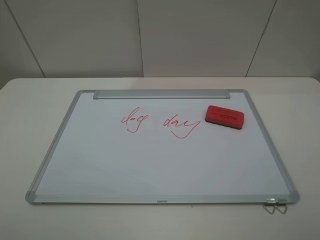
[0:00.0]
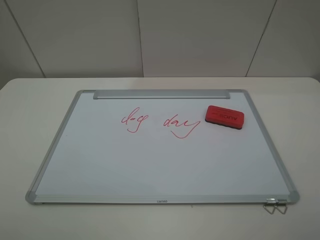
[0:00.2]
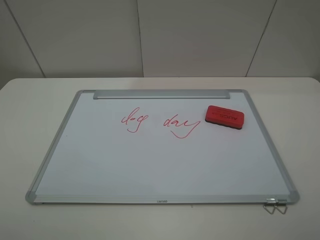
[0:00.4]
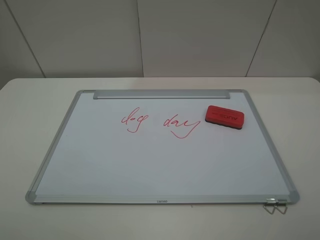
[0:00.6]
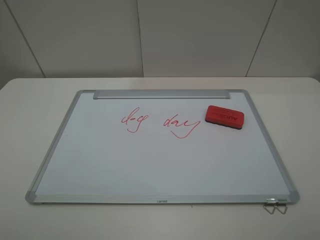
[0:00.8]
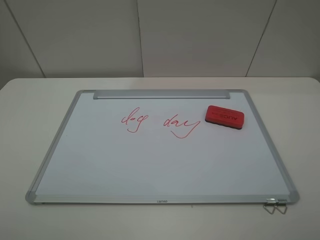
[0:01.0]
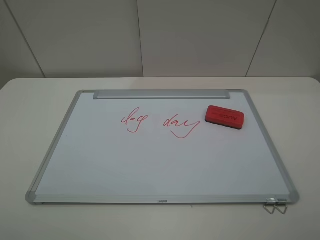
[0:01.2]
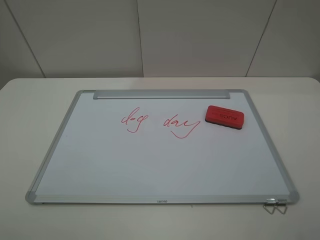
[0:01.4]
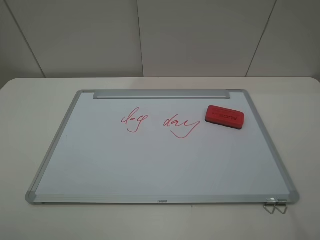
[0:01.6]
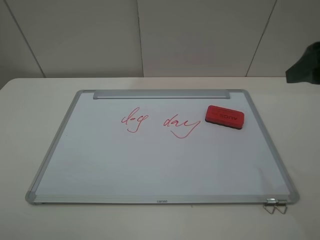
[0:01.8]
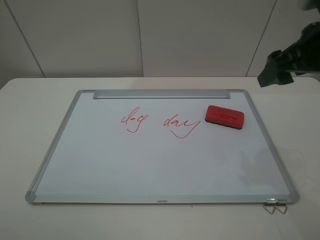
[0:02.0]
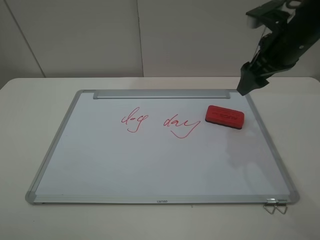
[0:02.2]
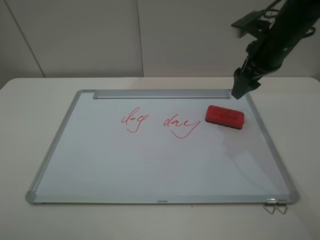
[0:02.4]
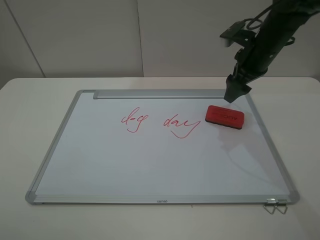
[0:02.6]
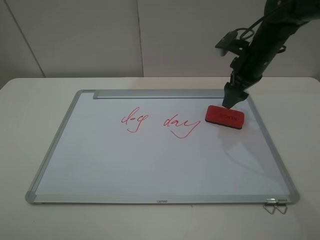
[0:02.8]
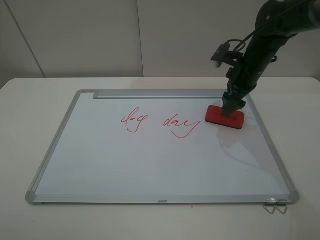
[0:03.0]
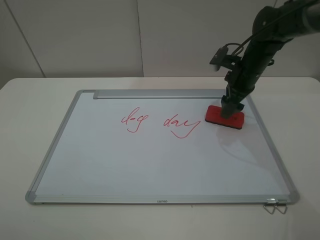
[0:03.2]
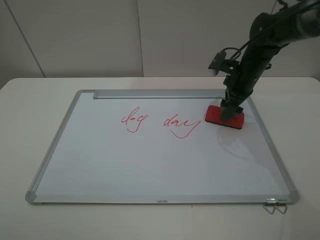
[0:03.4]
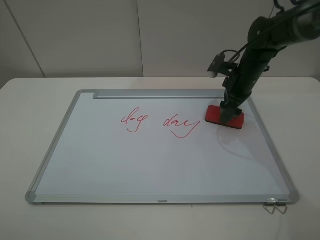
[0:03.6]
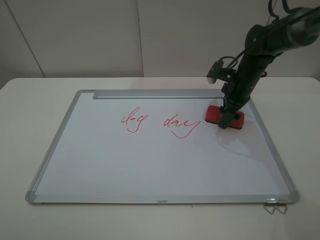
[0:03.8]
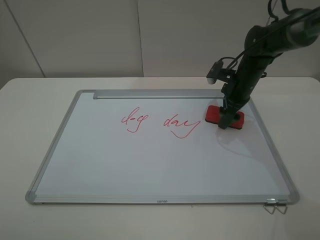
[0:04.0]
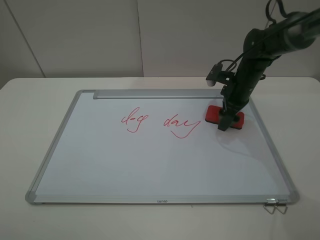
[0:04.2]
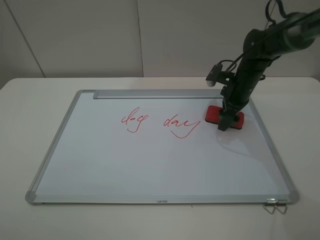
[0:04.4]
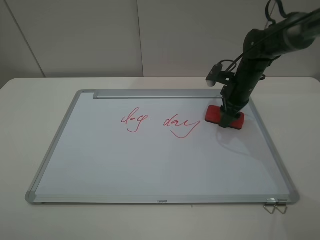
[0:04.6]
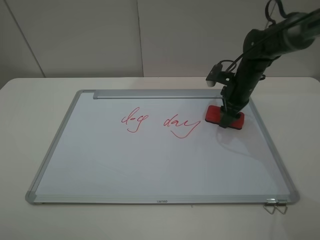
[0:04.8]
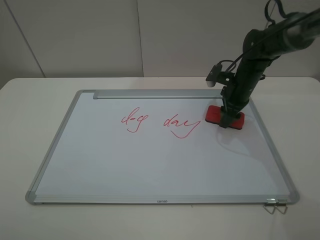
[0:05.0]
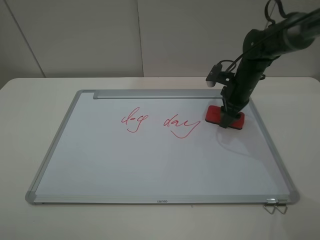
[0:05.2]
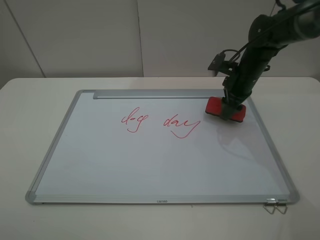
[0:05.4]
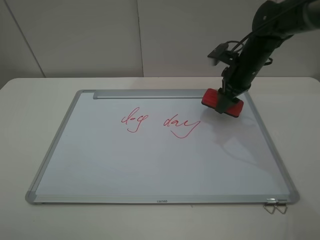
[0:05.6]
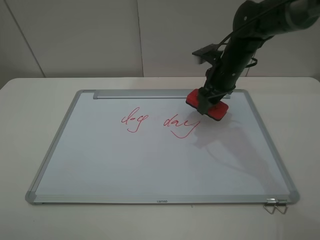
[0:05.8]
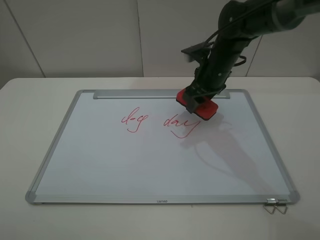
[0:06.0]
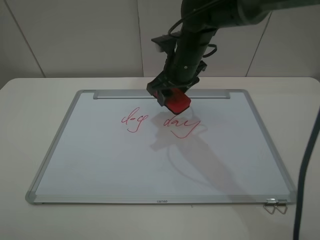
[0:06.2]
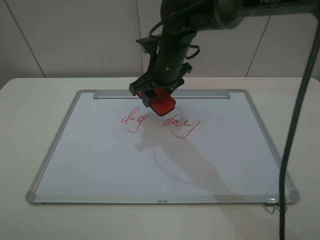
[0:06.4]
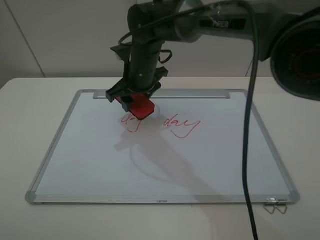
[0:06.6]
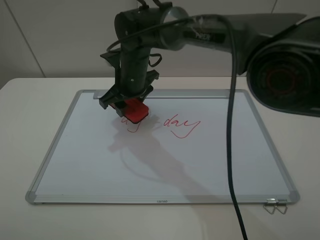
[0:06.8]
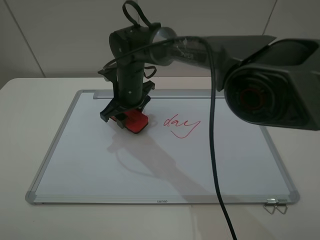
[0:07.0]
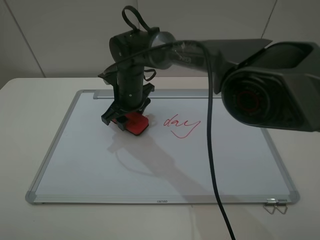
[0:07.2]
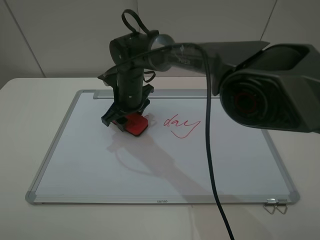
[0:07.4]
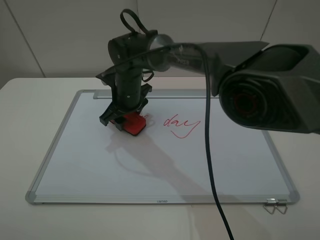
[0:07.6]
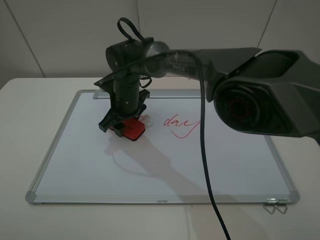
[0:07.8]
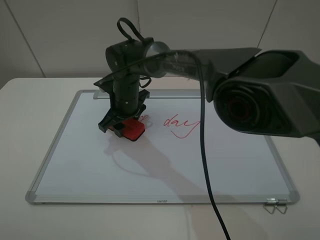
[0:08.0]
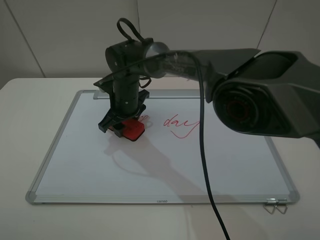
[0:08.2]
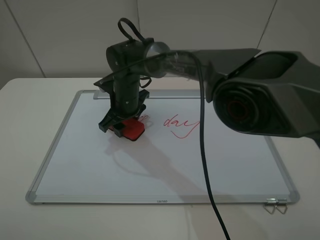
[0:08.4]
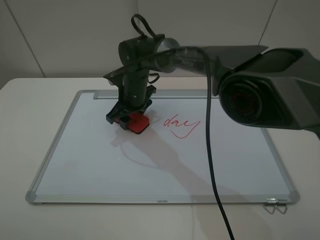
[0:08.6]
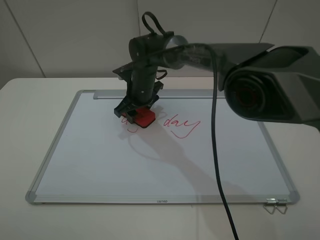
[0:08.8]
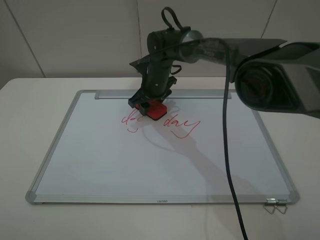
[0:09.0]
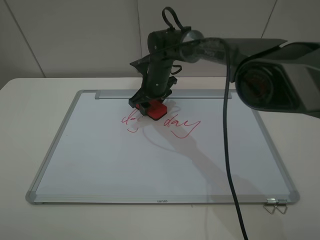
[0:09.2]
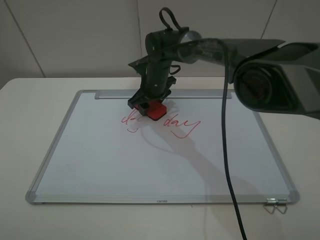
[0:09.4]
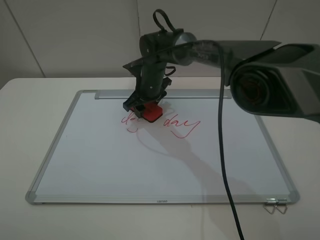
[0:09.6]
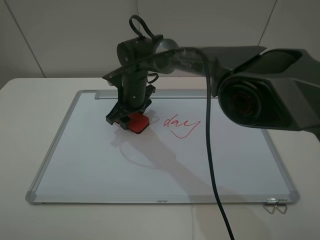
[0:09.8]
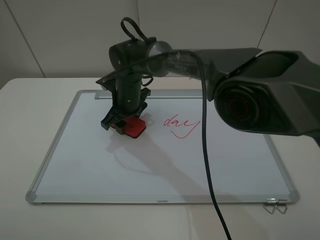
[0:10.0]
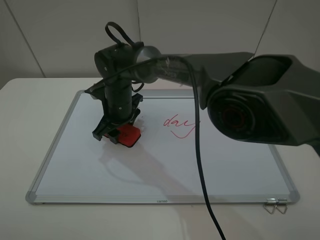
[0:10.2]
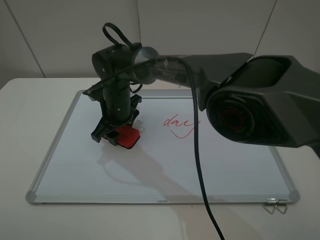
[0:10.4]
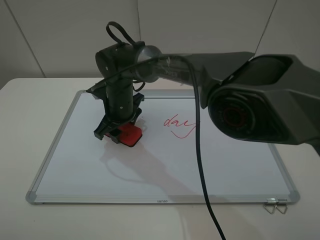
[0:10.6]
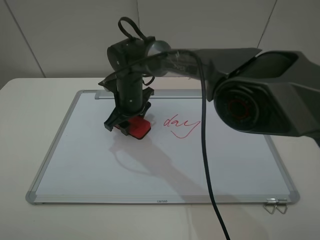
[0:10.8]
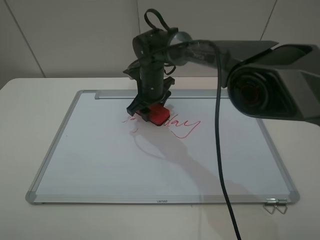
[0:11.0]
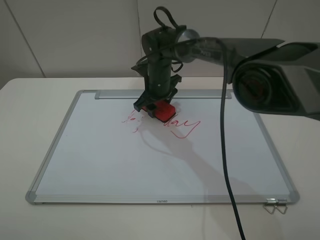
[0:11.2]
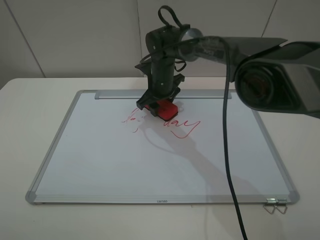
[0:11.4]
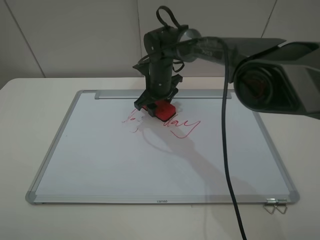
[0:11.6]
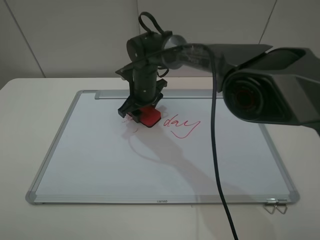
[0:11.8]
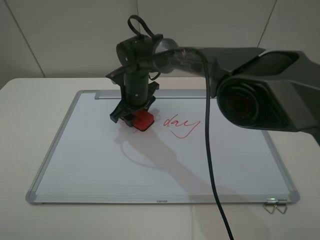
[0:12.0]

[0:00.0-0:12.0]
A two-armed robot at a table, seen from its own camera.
Step, 0:00.0 to 0:04.4: Grasp the eraser with the right gripper.
0:01.6 to 0:03.0: The right gripper goes about 35 cm forward and downward.
0:03.0 to 0:04.4: The right gripper moves downward, about 5 cm.
0:04.4 to 0:06.0: The right gripper is displaced to the left and upward by about 10 cm, and closes.
0:06.0 to 0:07.6: The right gripper moves to the left, some 20 cm.
0:07.6 to 0:09.0: The right gripper is displaced to the right and forward by roughly 10 cm.
0:09.0 to 0:10.4: The right gripper goes approximately 15 cm to the left and backward.
0:10.4 to 0:12.0: The right gripper moves roughly 10 cm to the right and comes back.

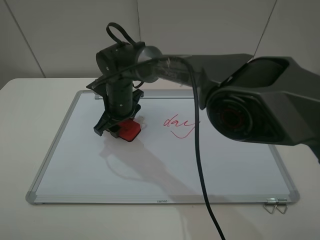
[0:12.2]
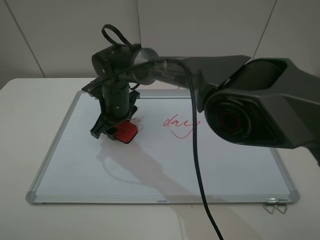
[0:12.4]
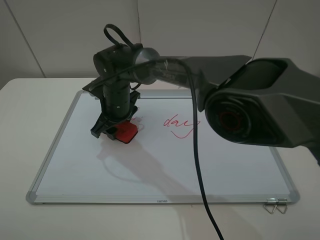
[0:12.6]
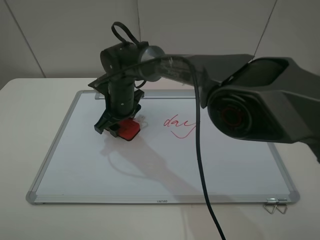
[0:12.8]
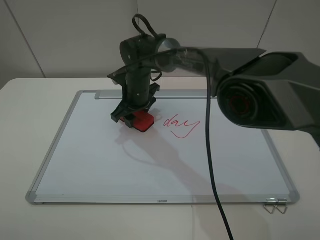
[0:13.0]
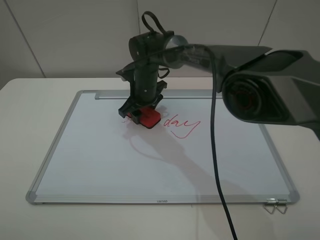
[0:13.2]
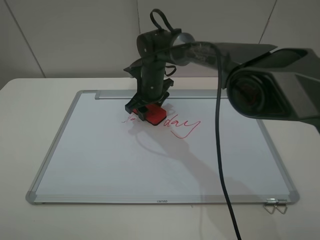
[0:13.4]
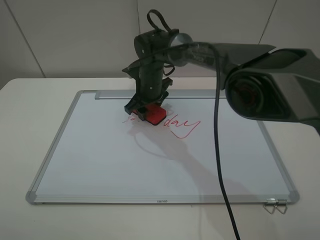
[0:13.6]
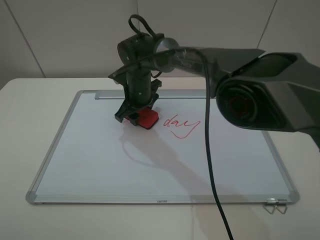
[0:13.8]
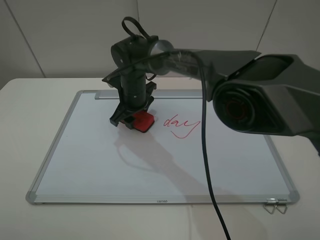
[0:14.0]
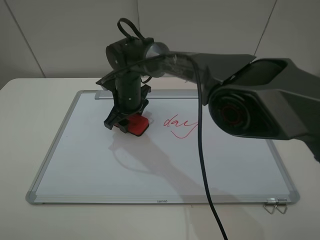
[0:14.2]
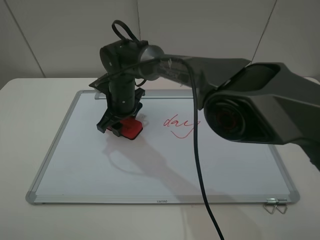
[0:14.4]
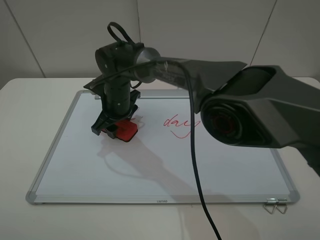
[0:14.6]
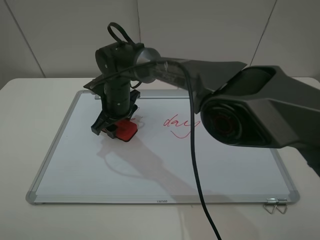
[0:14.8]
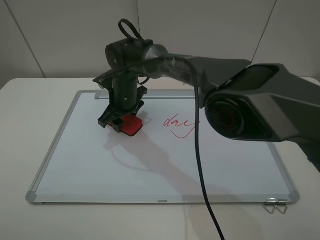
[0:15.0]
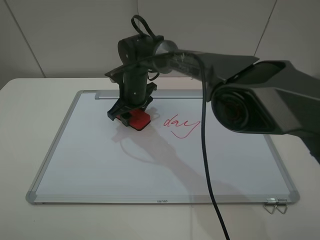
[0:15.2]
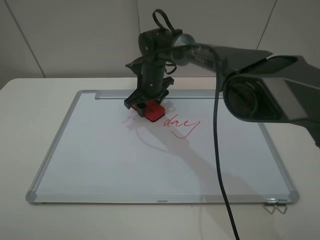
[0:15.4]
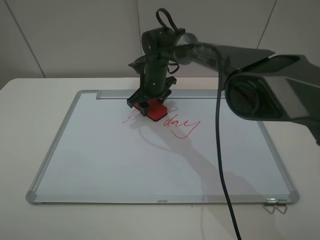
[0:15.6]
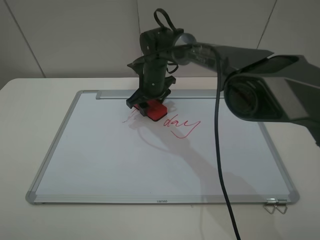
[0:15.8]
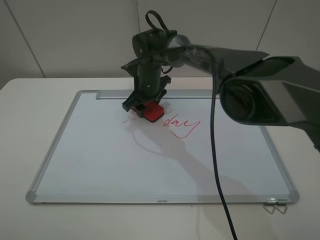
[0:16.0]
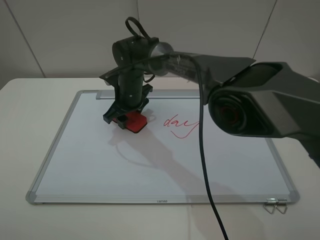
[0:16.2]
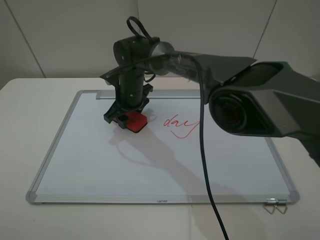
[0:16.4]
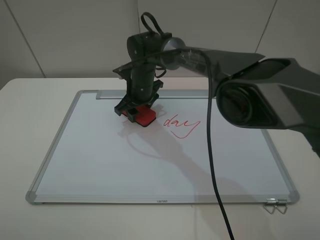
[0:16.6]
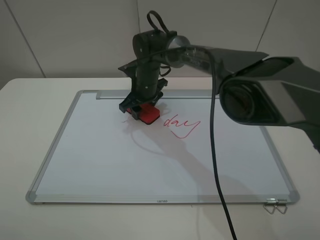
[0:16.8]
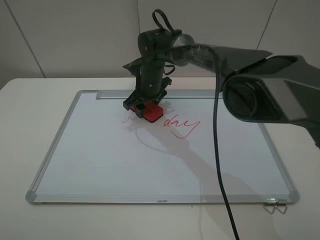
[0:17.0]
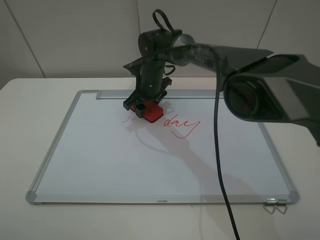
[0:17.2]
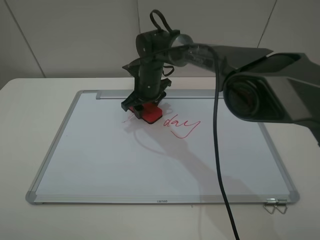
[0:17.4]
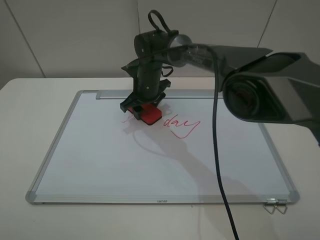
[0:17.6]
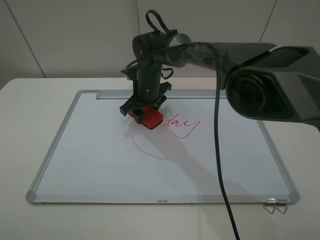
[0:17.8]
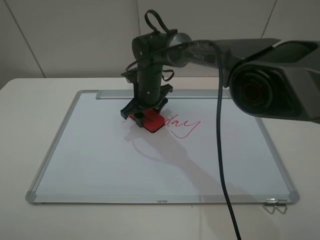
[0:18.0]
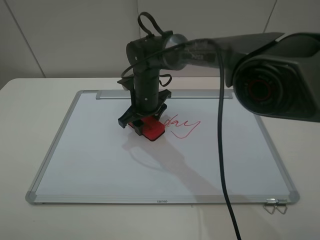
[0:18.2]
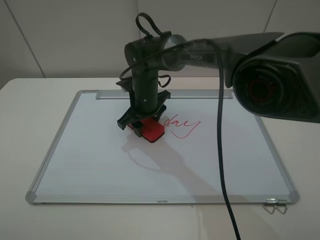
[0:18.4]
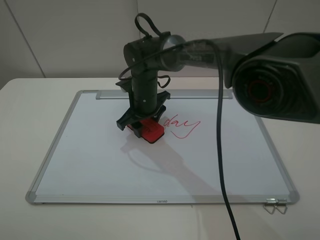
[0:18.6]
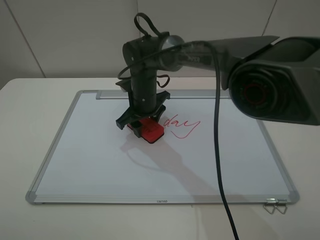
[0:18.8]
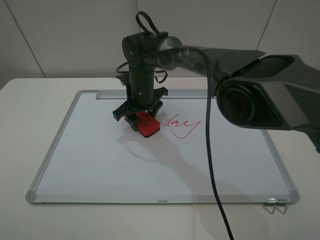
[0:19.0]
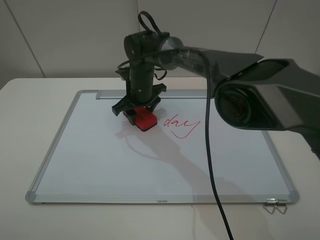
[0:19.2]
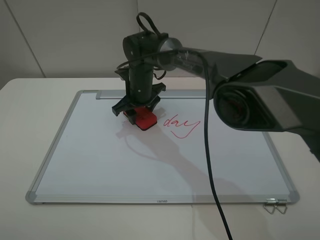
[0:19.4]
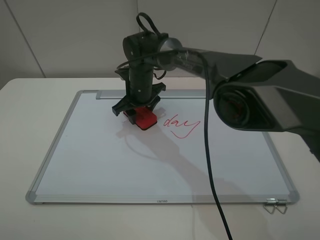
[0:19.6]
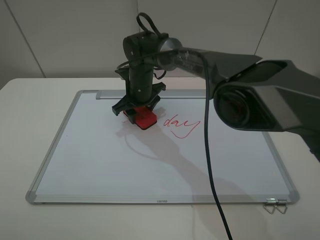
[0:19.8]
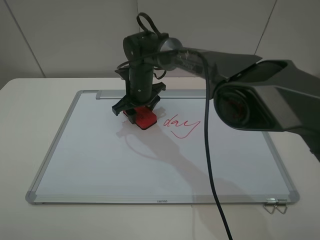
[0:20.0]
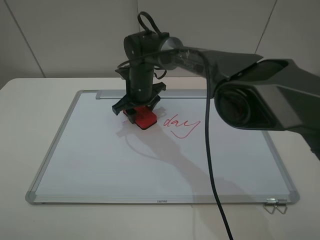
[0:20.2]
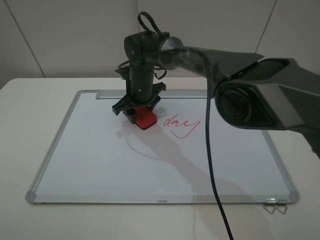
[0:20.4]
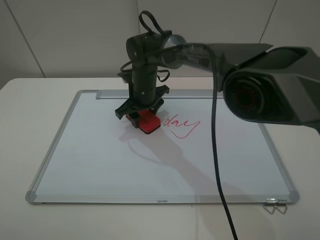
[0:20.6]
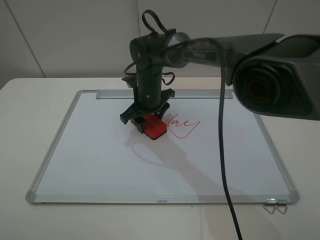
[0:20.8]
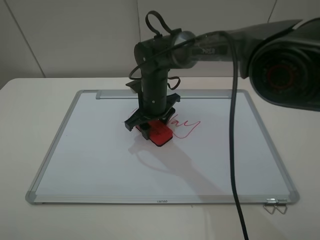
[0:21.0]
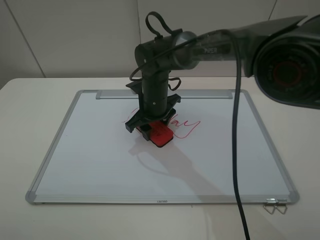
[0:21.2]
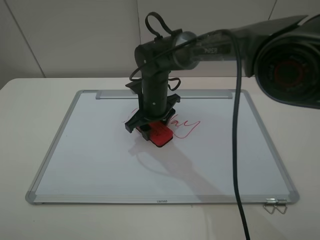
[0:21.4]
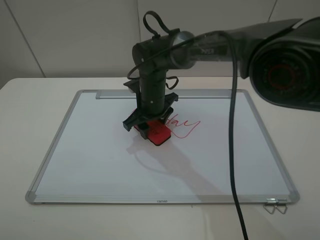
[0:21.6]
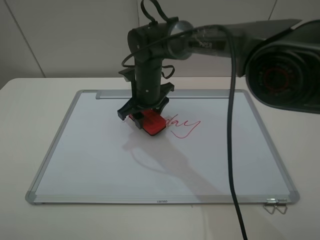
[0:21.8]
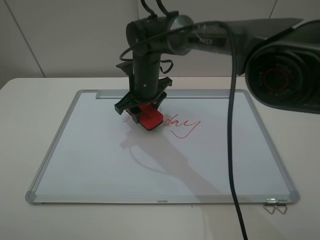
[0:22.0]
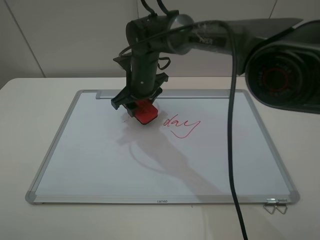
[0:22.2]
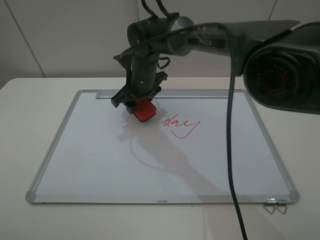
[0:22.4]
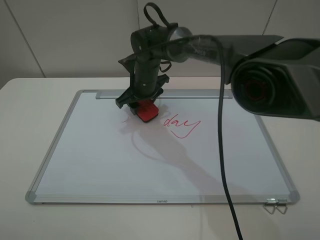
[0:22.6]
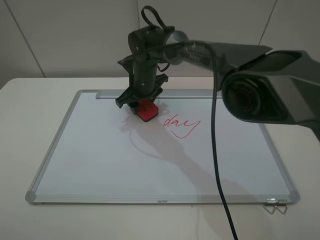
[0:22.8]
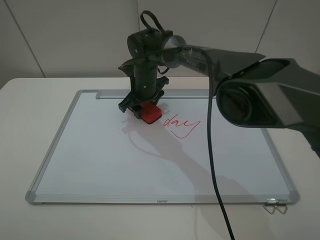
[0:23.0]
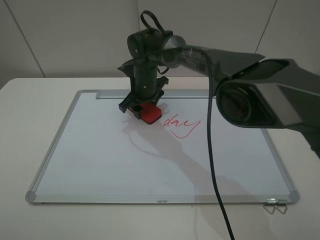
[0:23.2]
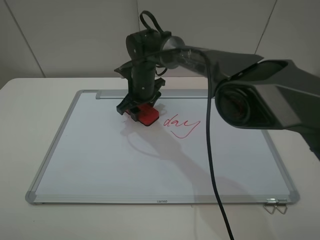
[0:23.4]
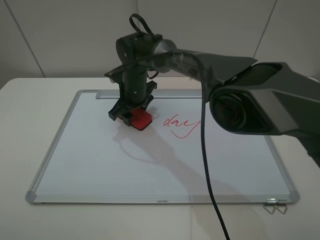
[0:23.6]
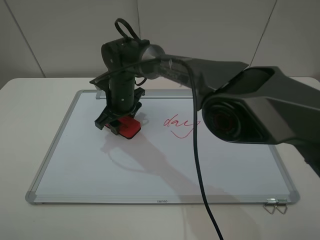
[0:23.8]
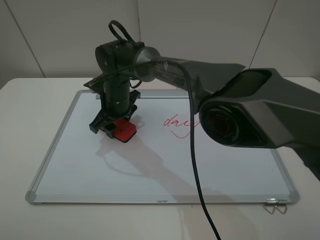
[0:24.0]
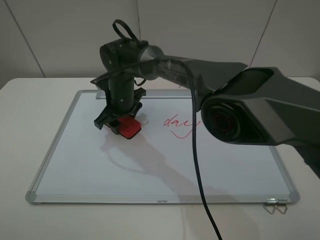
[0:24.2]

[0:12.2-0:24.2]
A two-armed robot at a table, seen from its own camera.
0:13.8 to 0:15.2: The grippers stay close to where they were, moving slightly.
0:15.2 to 0:19.8: The grippers move only a little.
0:19.8 to 0:21.2: The right gripper is displaced backward by approximately 5 cm.
0:21.2 to 0:22.6: The right gripper is displaced forward by approximately 5 cm.
0:22.6 to 0:24.2: The right gripper moves about 5 cm.
